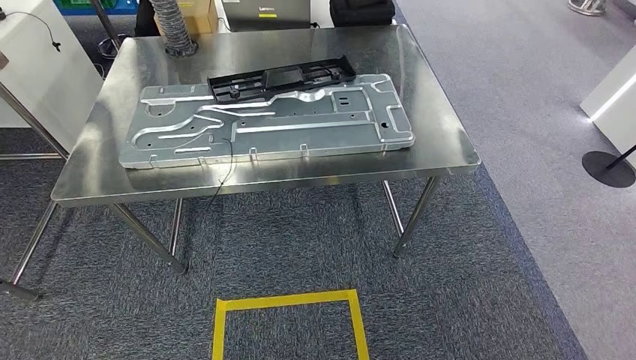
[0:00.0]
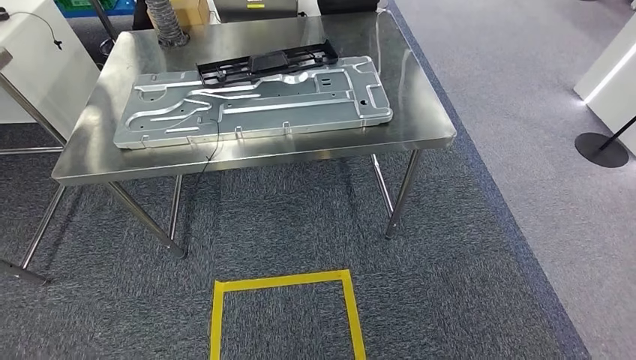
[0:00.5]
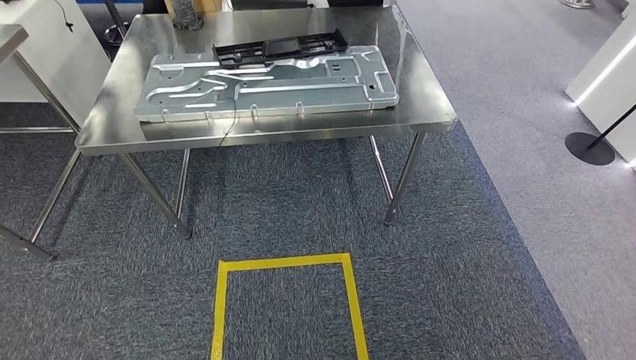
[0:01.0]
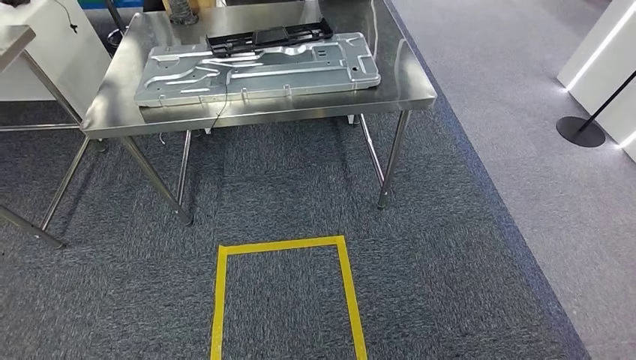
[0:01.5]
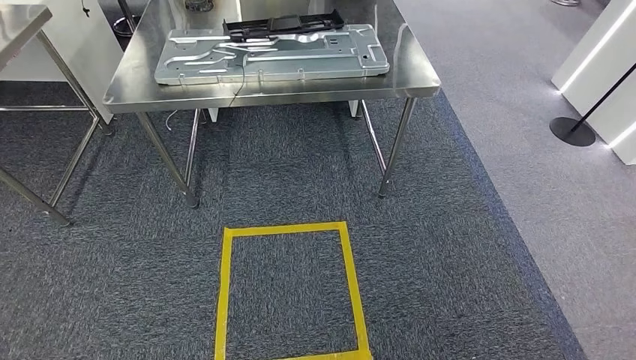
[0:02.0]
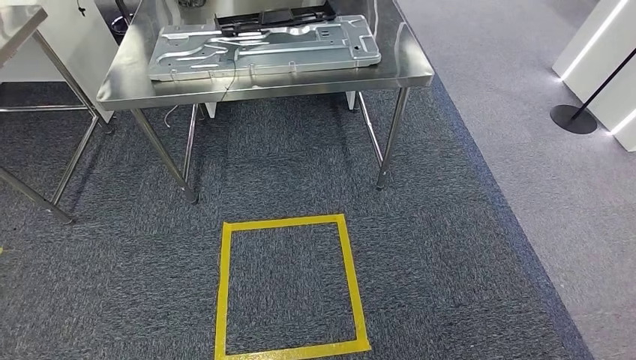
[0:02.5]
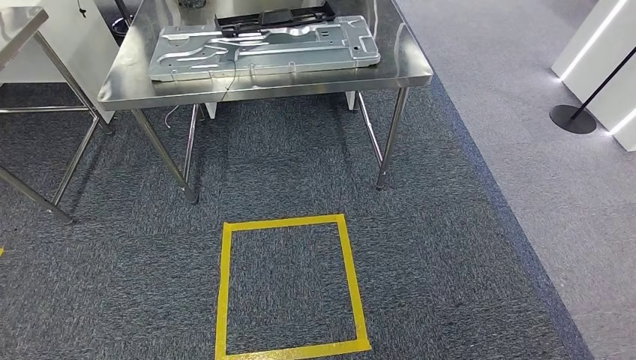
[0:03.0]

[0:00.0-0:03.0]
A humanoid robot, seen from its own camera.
Step, 0:00.0 to 0:03.0: Move to the initial position of the shelf.

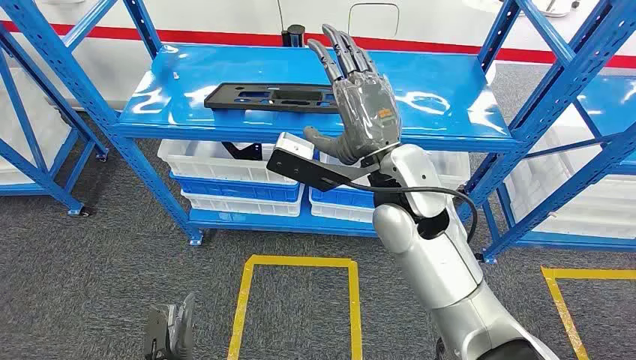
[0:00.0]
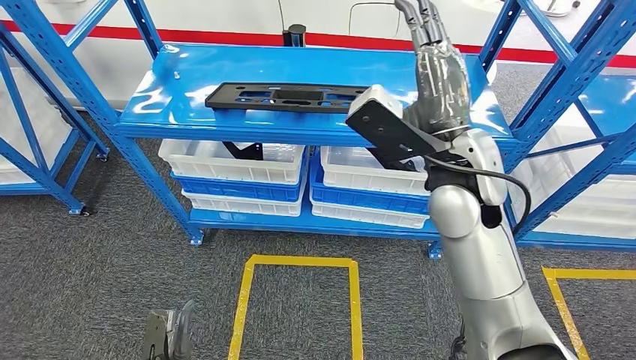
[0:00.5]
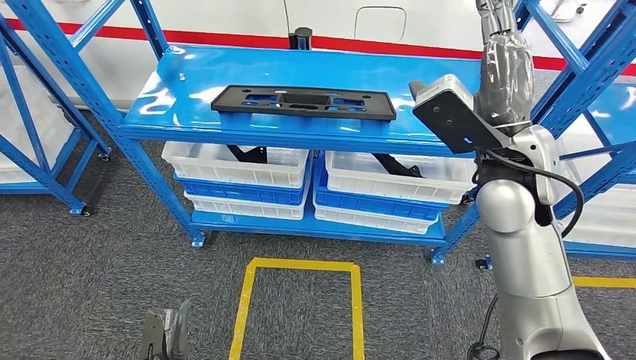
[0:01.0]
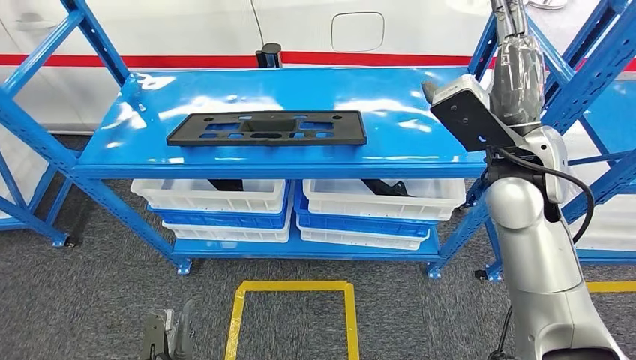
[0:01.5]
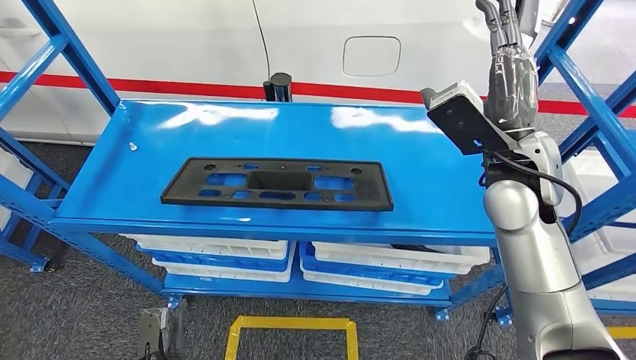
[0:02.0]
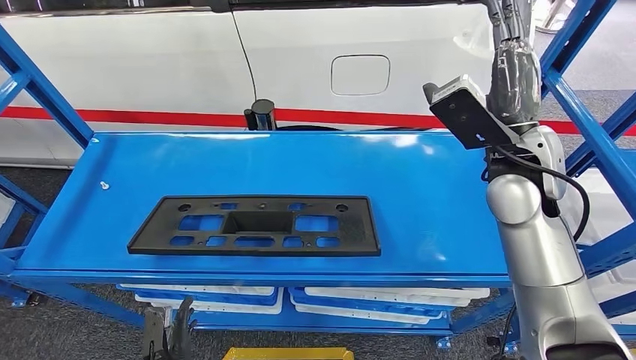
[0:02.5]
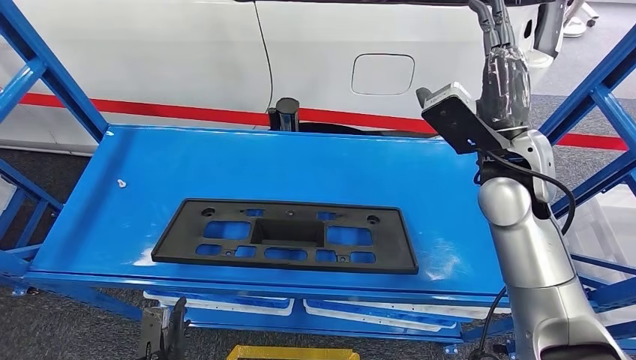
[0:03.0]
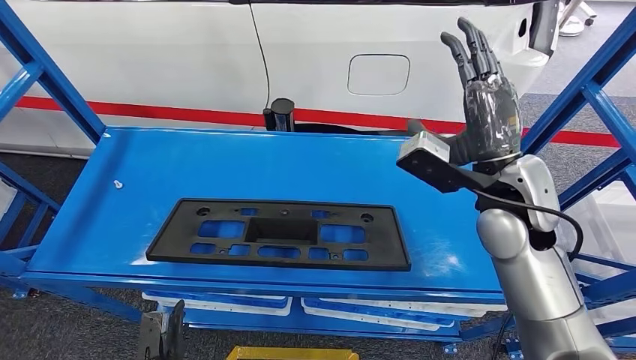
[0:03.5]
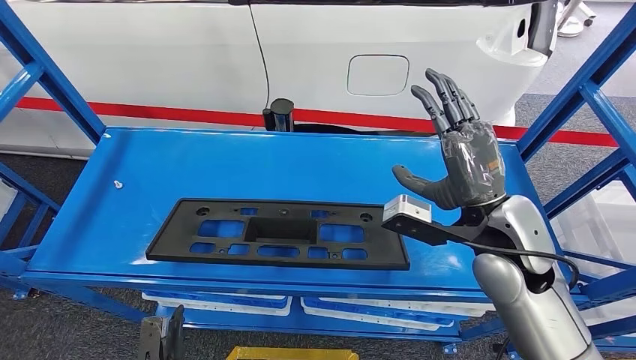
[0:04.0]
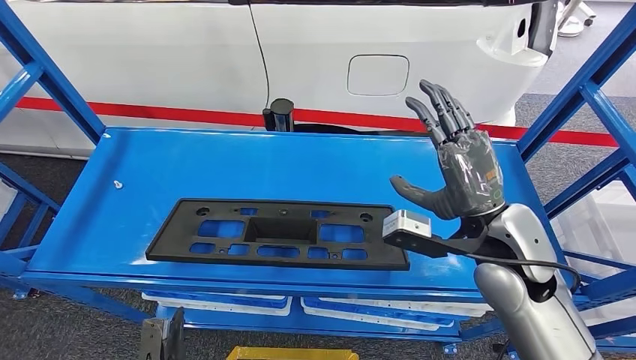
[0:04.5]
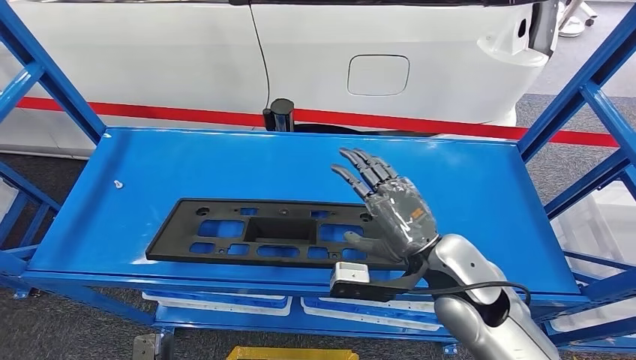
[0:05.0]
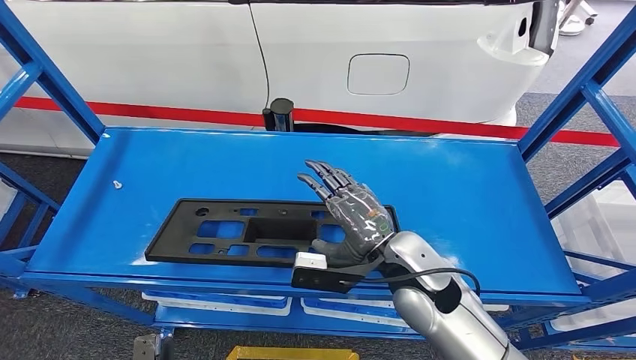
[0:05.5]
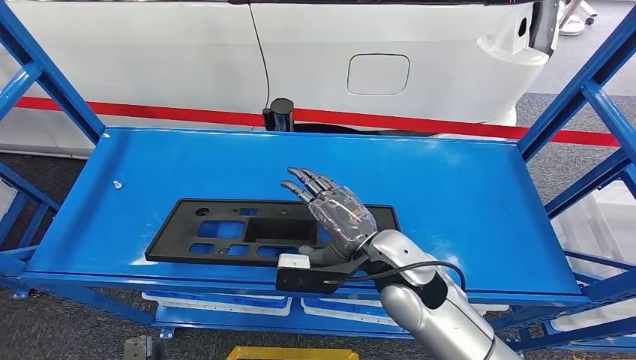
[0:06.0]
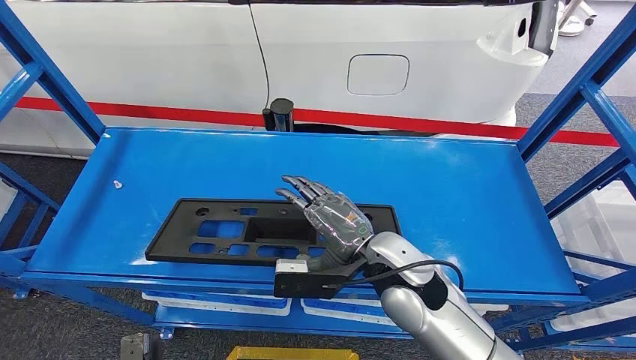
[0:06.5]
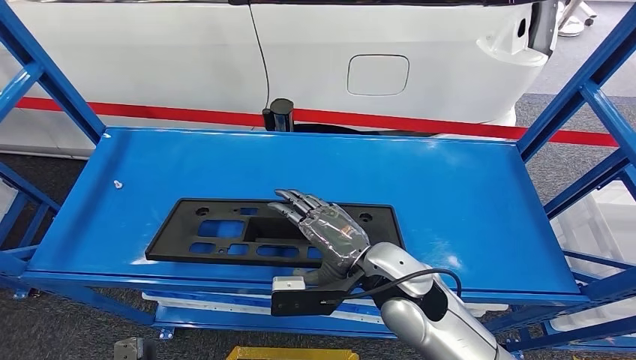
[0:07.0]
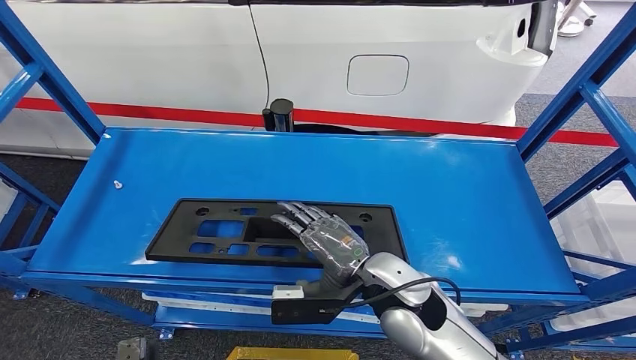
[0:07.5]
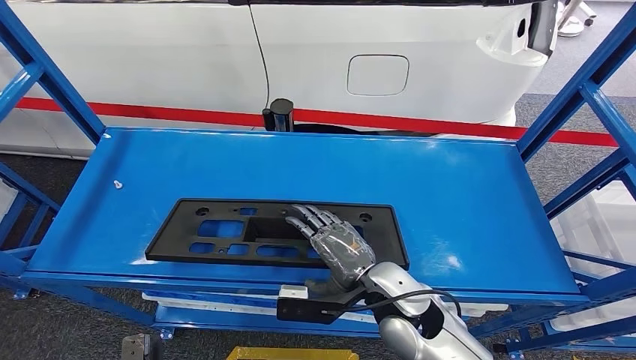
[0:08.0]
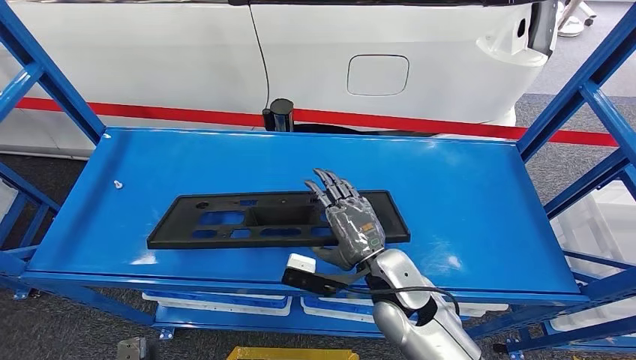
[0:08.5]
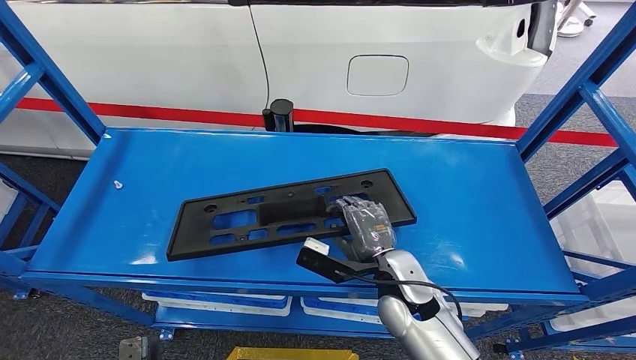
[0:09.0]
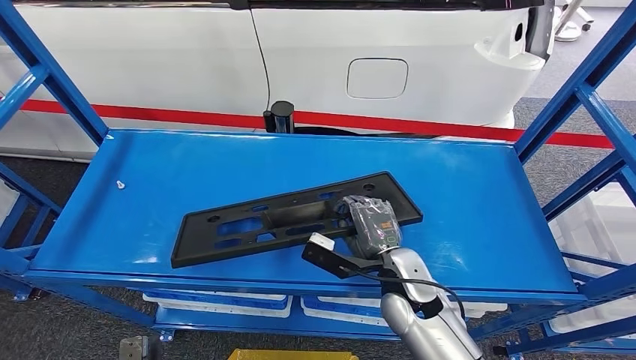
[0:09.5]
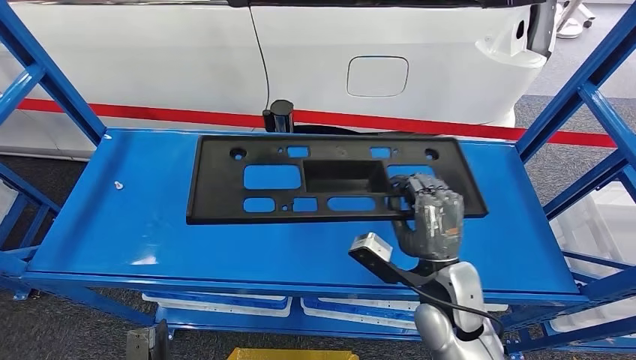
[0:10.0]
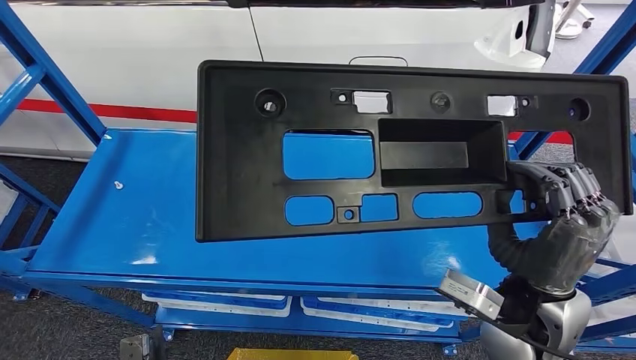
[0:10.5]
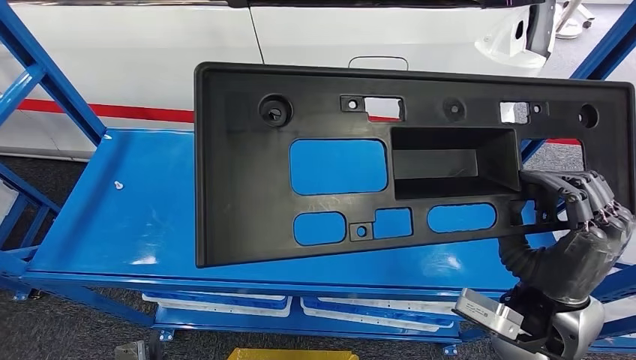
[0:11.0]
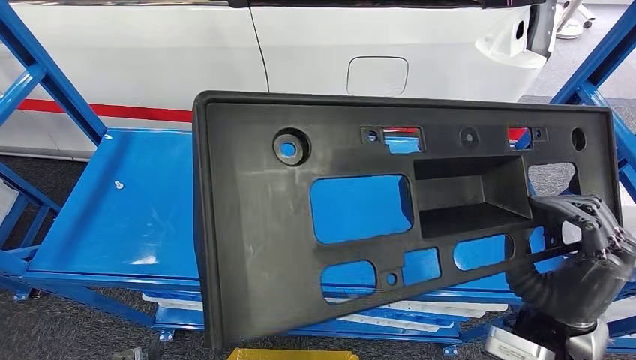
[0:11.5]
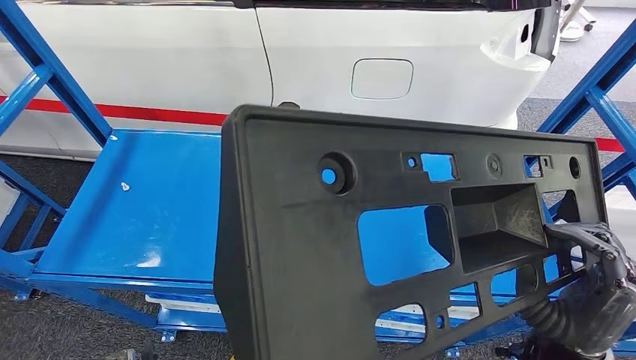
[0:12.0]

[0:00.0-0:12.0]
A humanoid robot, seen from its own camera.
0:04.0 to 0:06.0: The right hand moves to the left and downward, about 15 cm.
0:06.0 to 0:08.0: The right hand ends up approximately 5 cm from where it was.

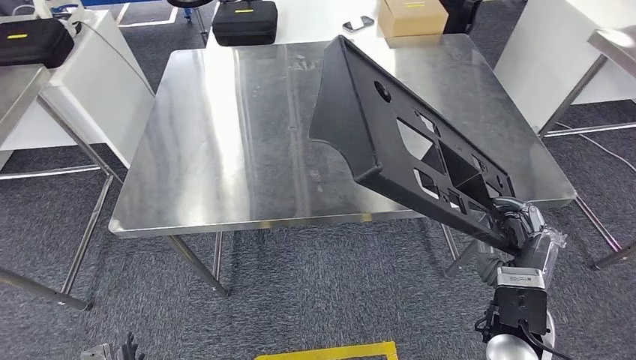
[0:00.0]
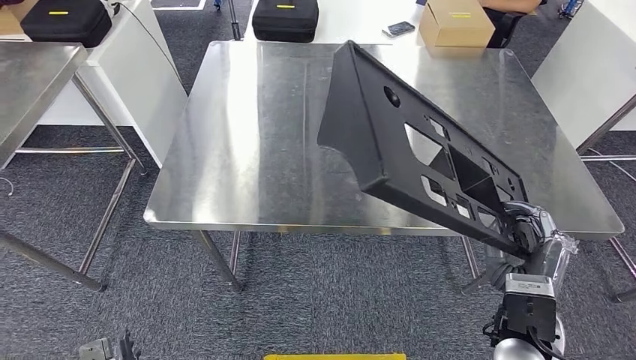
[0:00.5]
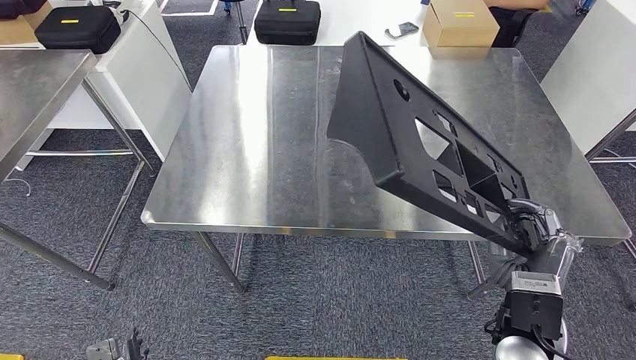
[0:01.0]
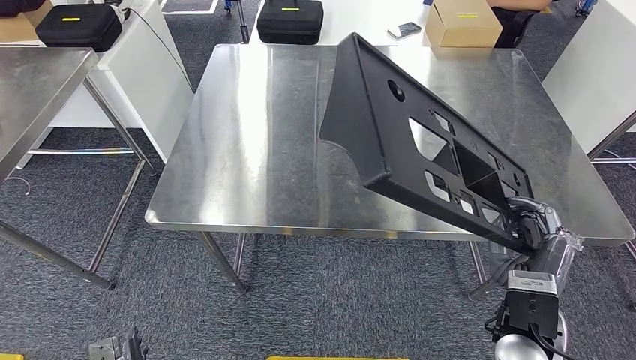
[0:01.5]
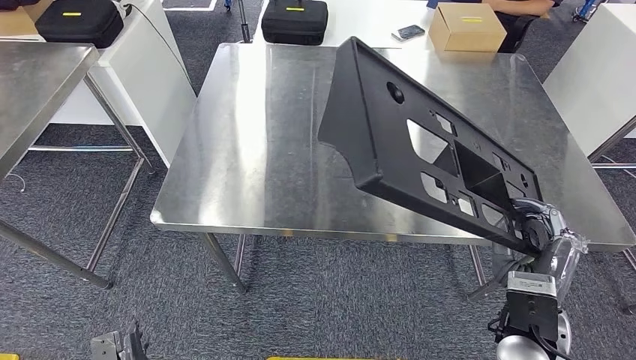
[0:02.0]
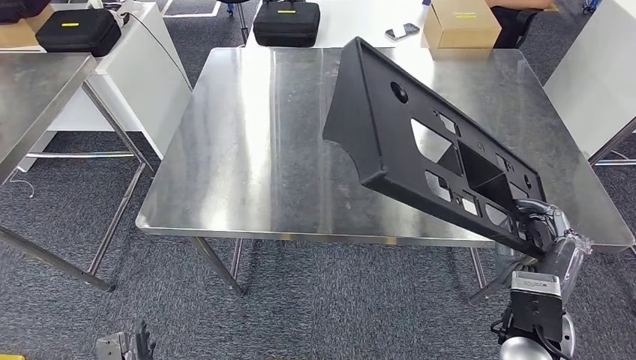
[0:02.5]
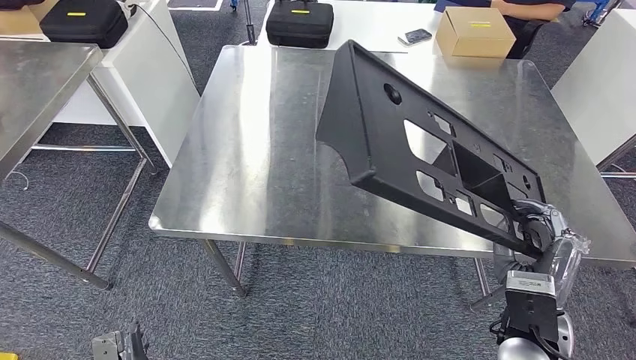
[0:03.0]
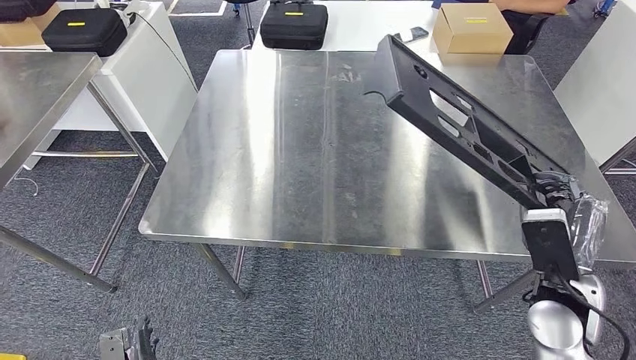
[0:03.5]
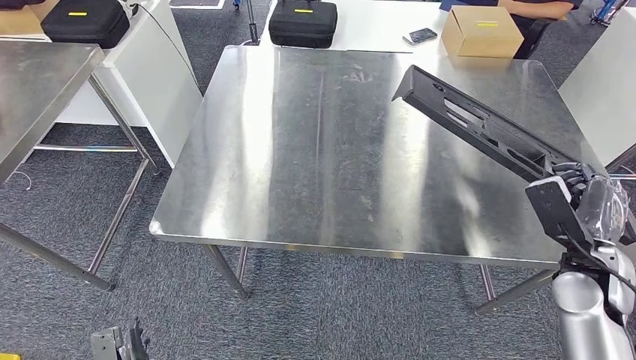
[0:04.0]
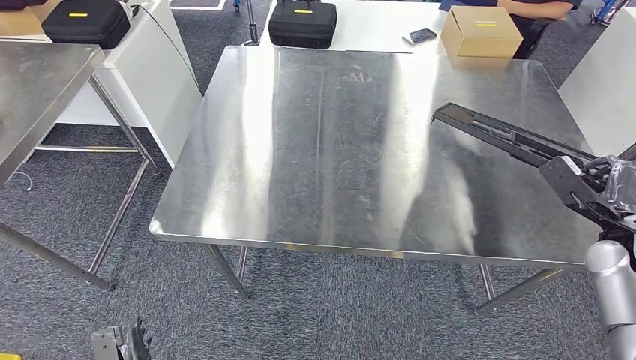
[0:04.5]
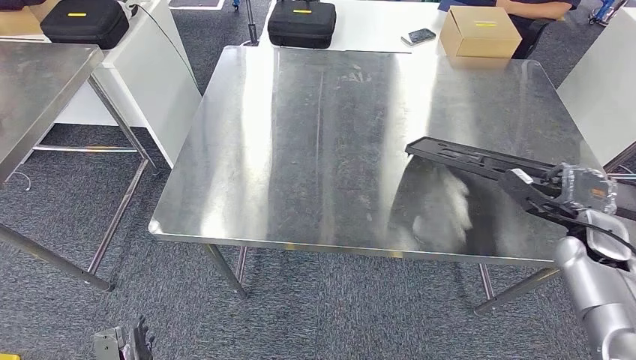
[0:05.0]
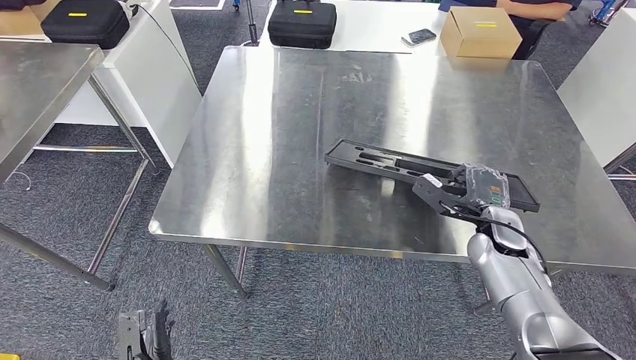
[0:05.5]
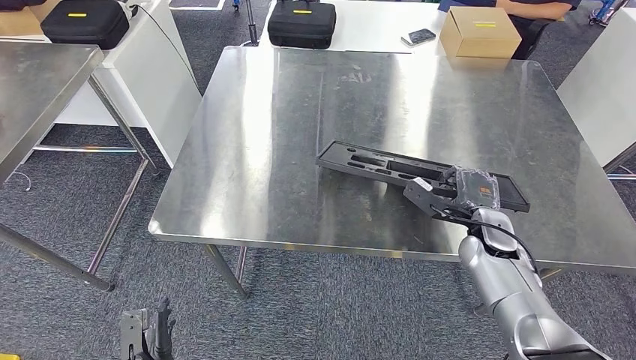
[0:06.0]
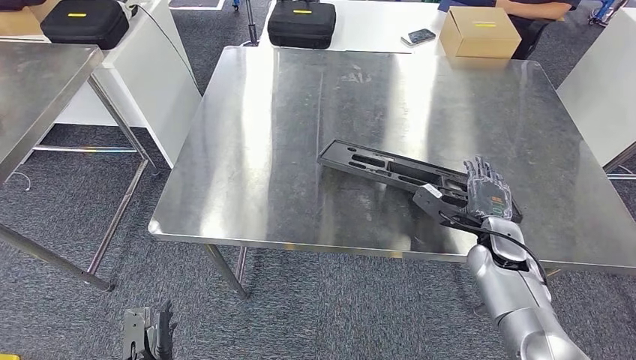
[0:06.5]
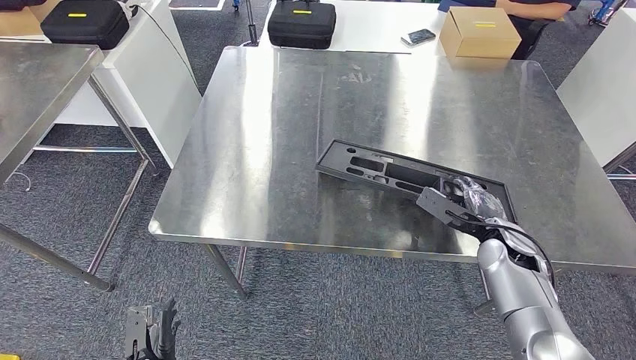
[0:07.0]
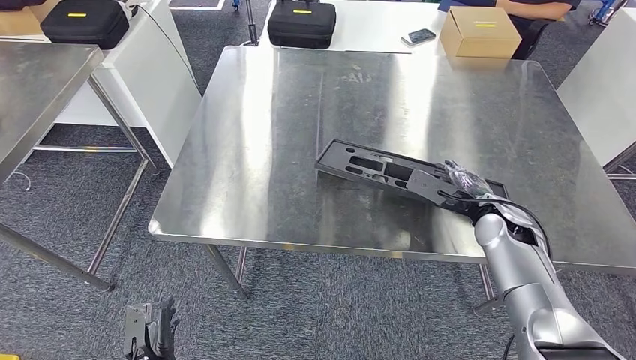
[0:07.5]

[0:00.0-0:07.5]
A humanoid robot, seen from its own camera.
0:04.0 to 0:05.5: The right hand shifts approximately 15 cm forward, to the left and downward.
